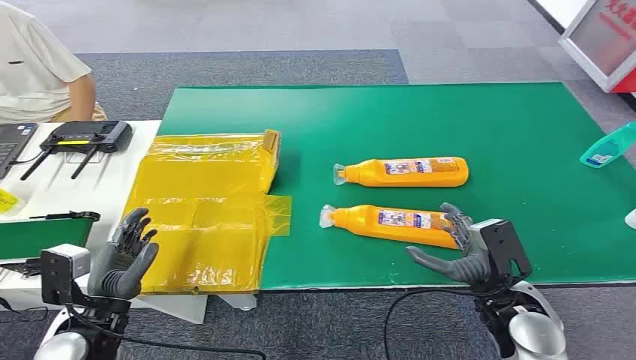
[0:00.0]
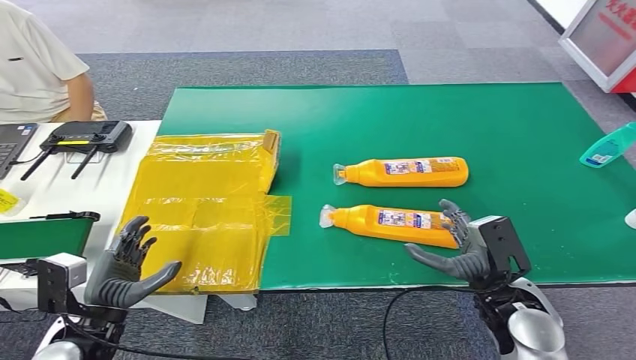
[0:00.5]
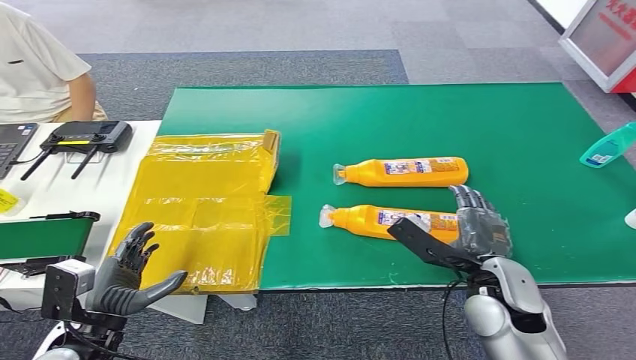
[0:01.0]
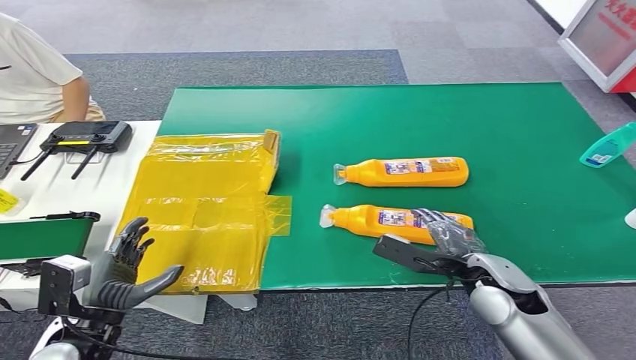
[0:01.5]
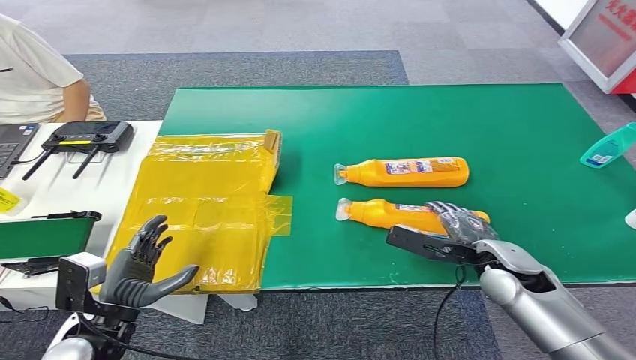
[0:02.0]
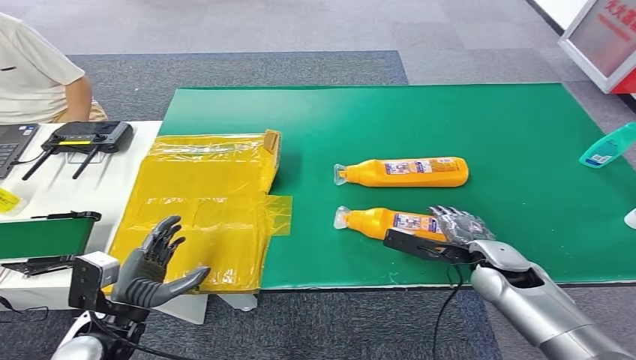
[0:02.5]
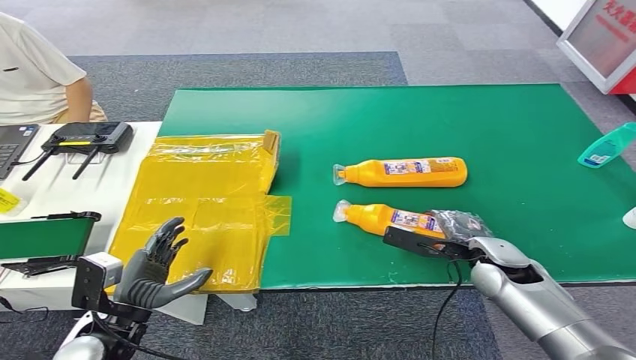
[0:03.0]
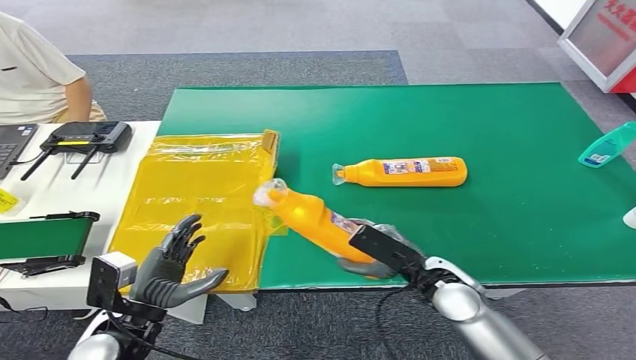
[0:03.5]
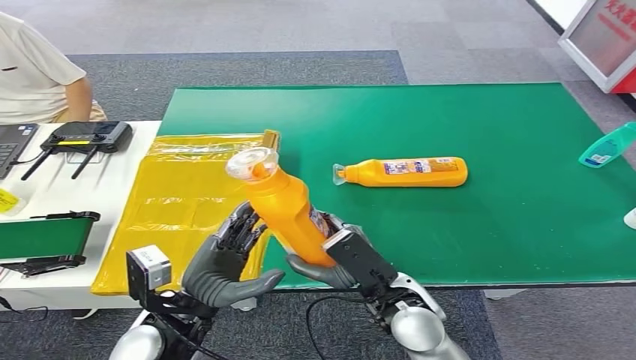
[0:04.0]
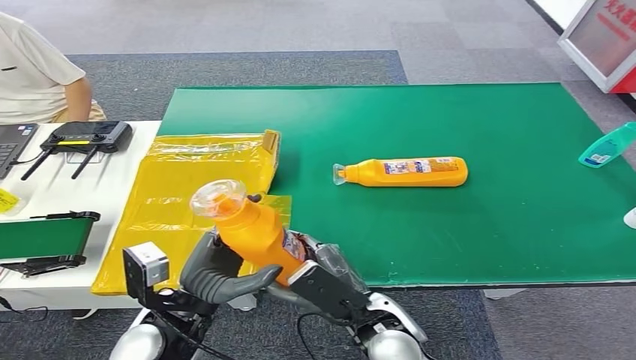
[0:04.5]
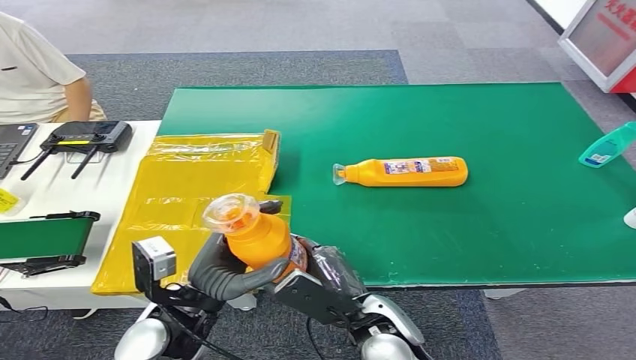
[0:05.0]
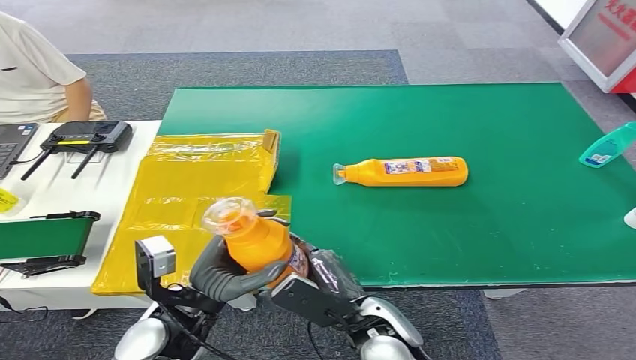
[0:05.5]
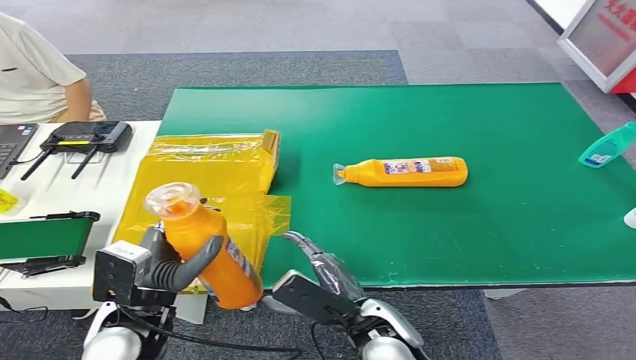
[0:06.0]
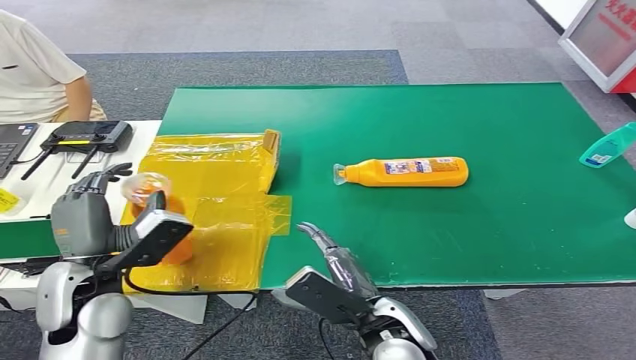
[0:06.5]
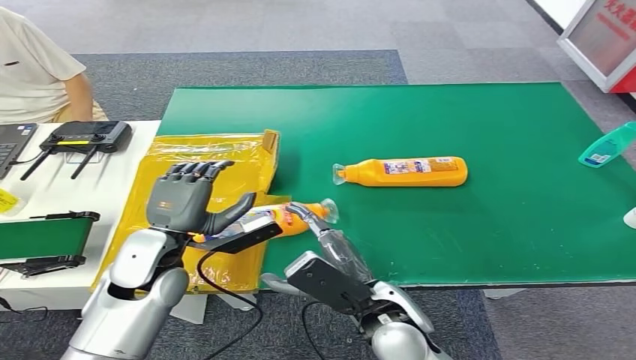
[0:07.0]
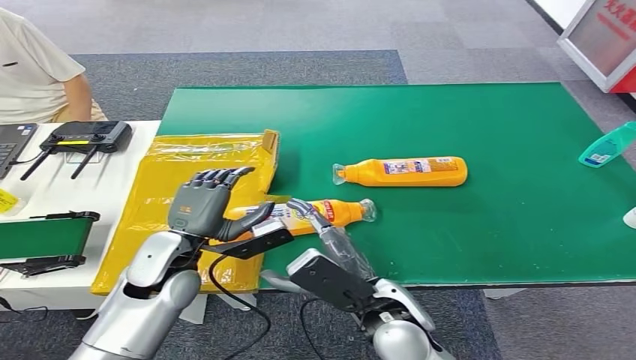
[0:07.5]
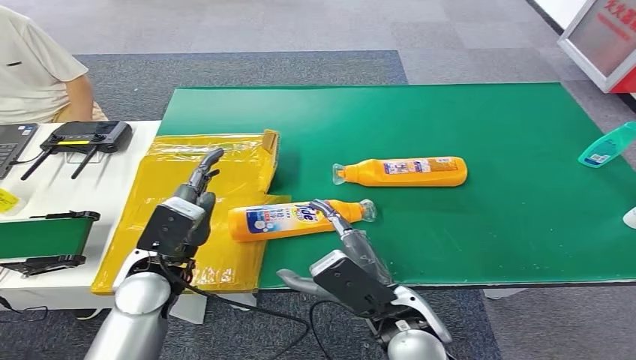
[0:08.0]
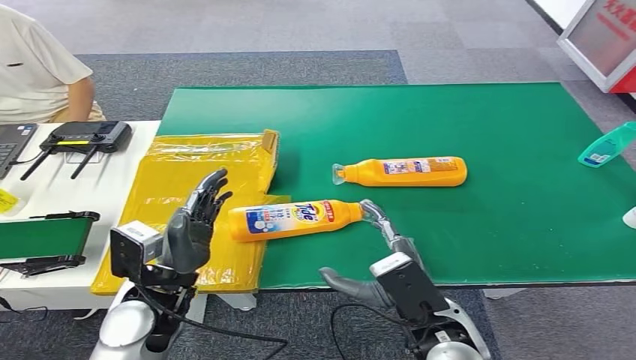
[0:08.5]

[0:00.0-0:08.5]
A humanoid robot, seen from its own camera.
Step, 0:00.0 to 0:03.5: Pick up the bottle from the table.
Step, 0:04.5 to 0:08.5: Turn the bottle to the front side.
0:04.0 to 0:06.5: The left hand shifts approximately 10 cm to the left.

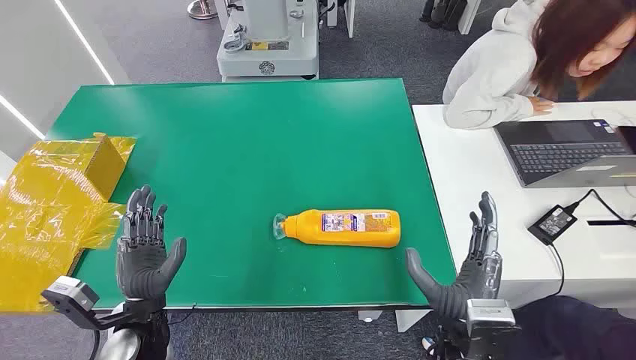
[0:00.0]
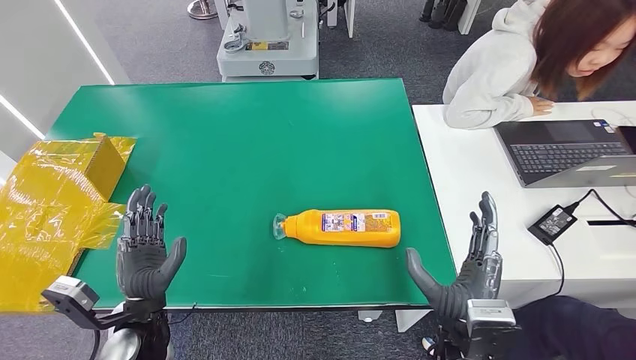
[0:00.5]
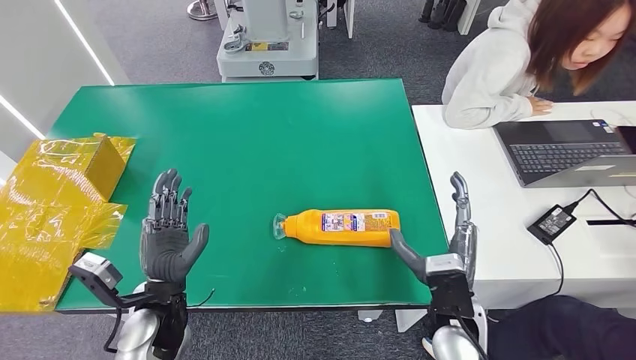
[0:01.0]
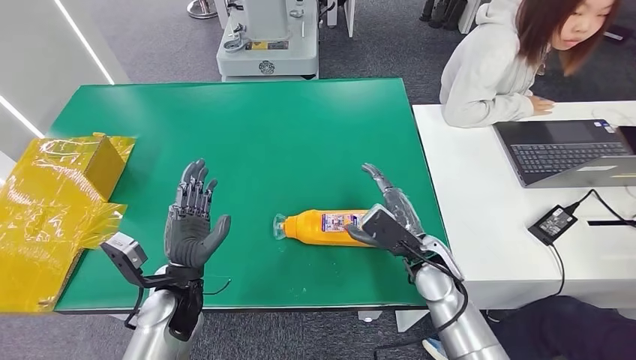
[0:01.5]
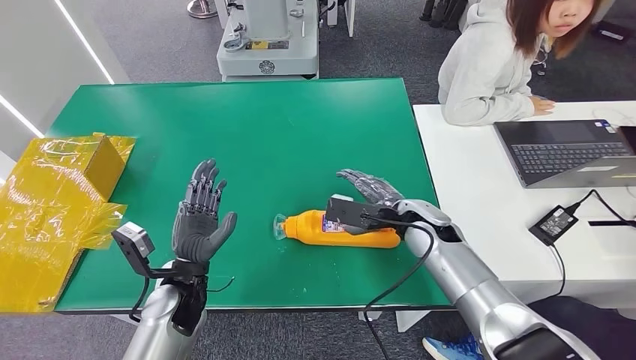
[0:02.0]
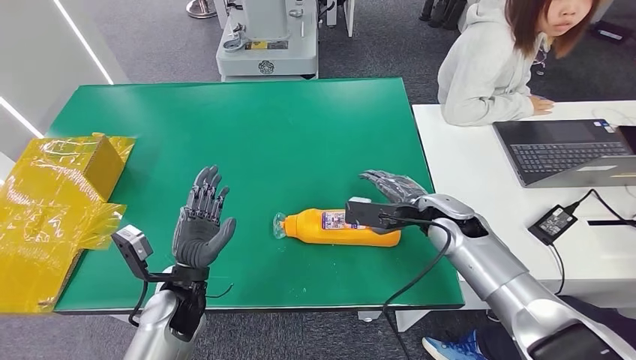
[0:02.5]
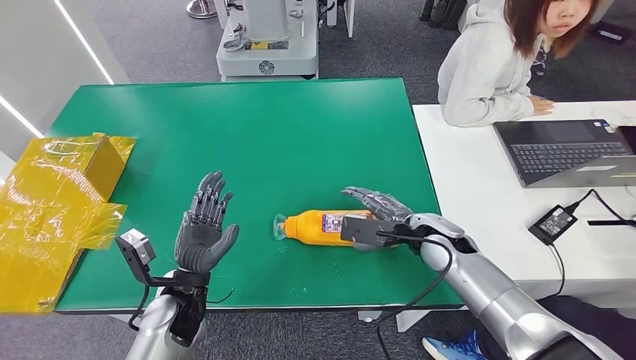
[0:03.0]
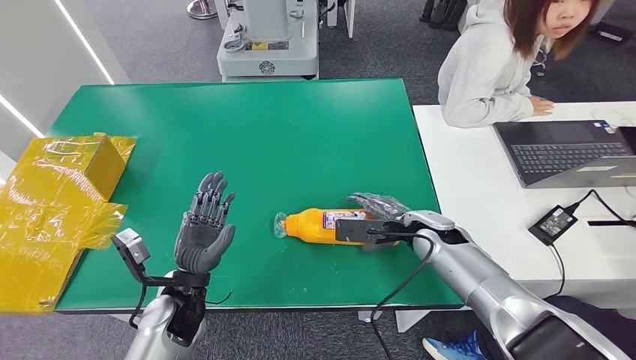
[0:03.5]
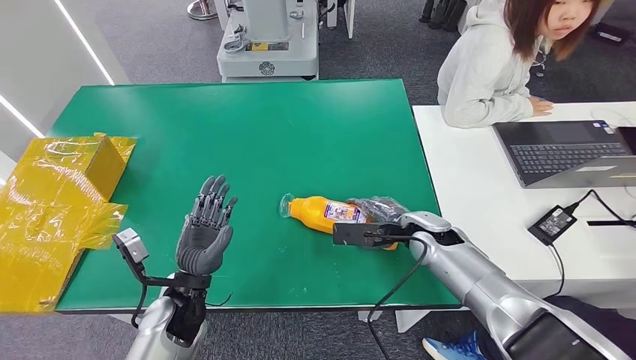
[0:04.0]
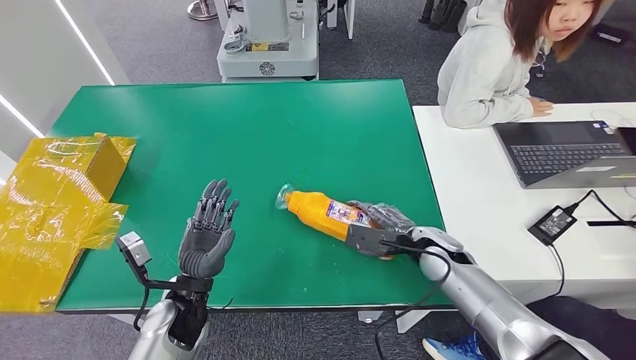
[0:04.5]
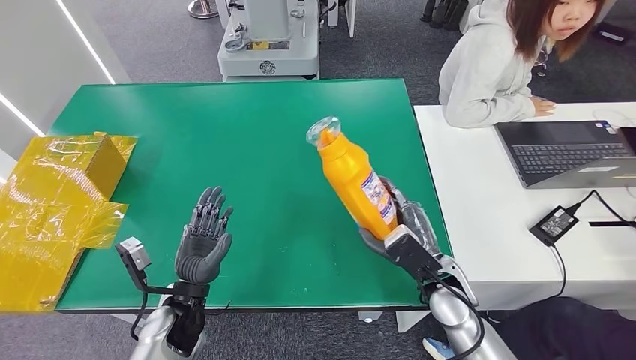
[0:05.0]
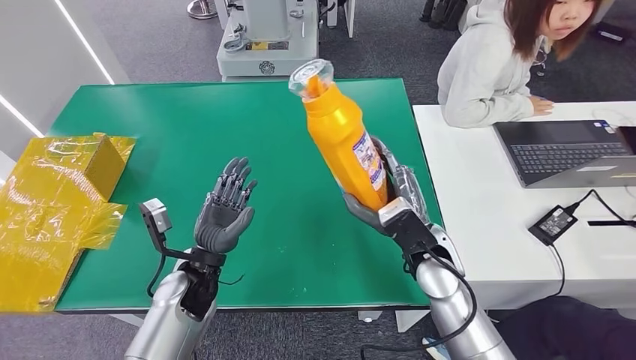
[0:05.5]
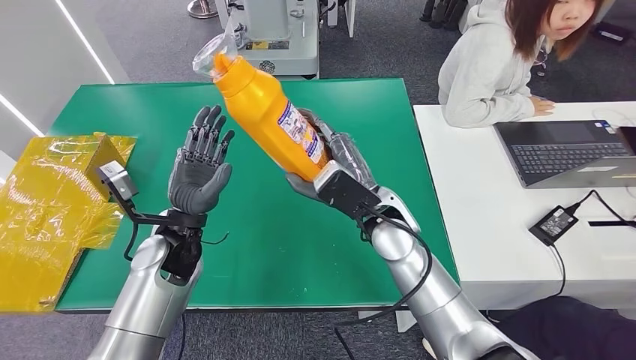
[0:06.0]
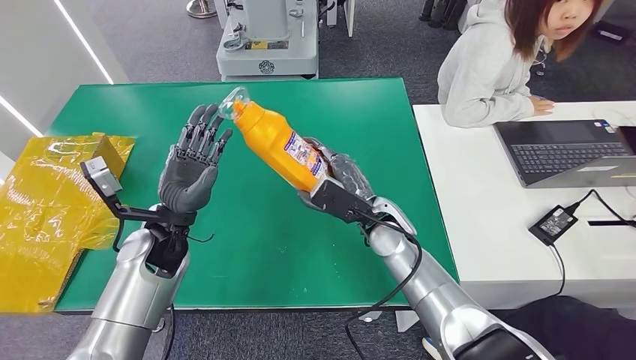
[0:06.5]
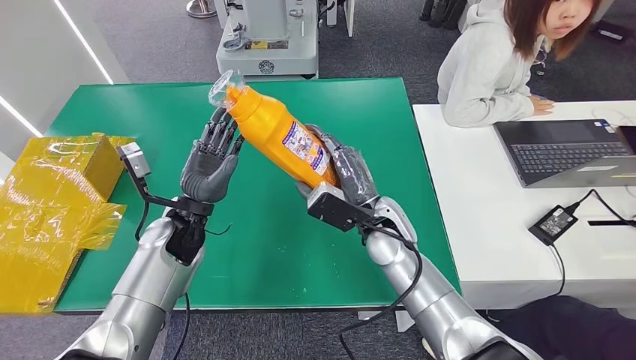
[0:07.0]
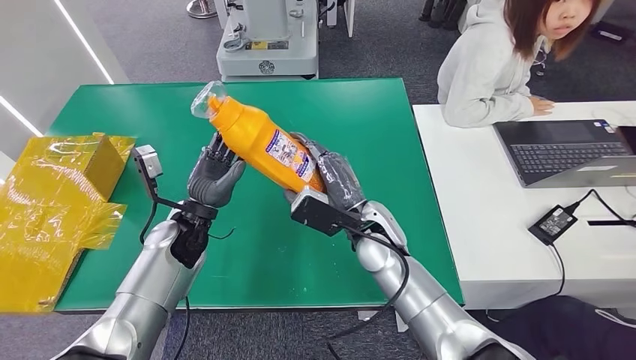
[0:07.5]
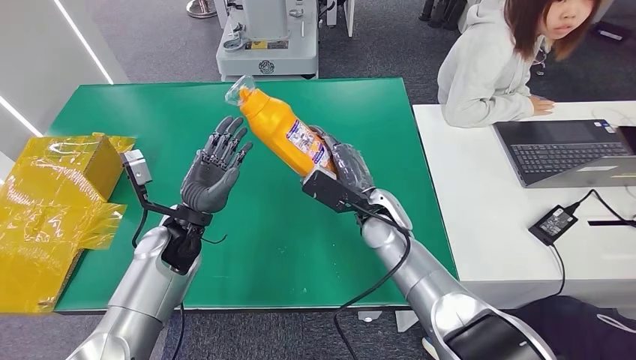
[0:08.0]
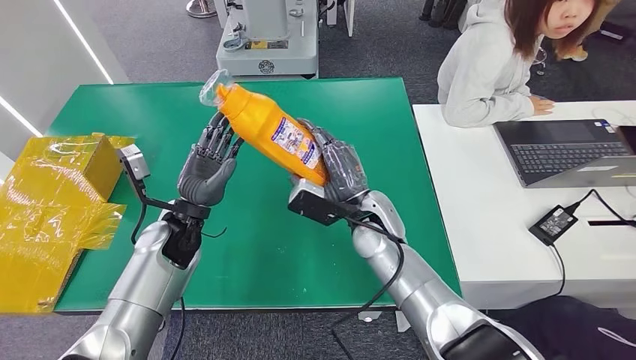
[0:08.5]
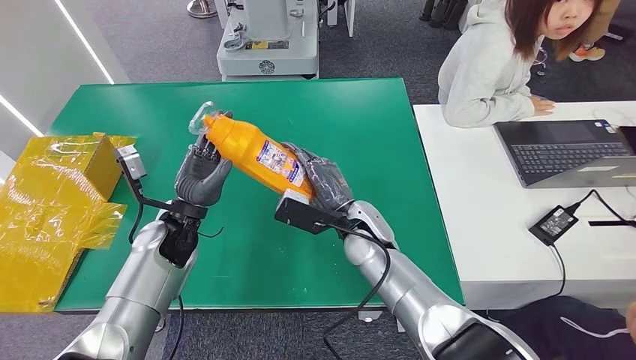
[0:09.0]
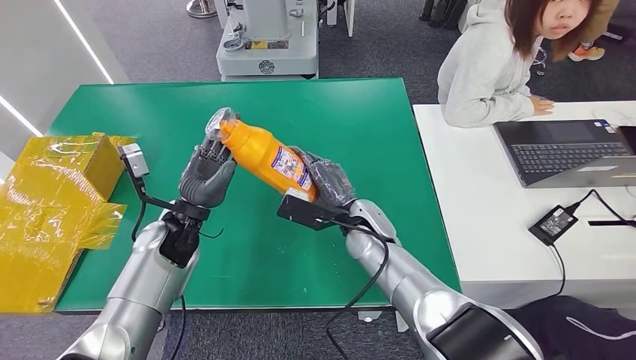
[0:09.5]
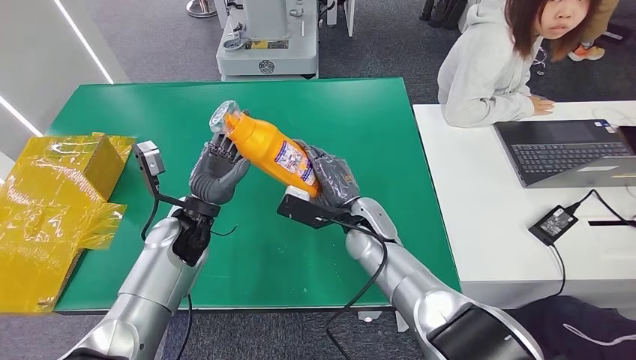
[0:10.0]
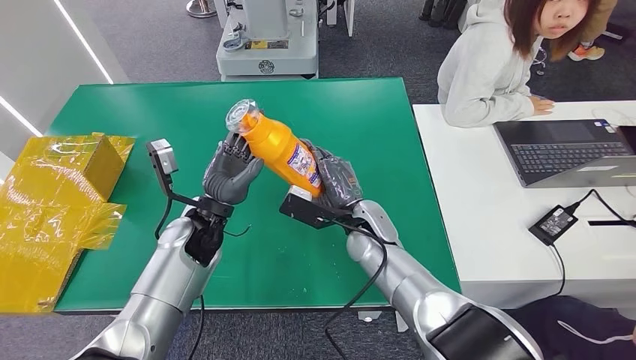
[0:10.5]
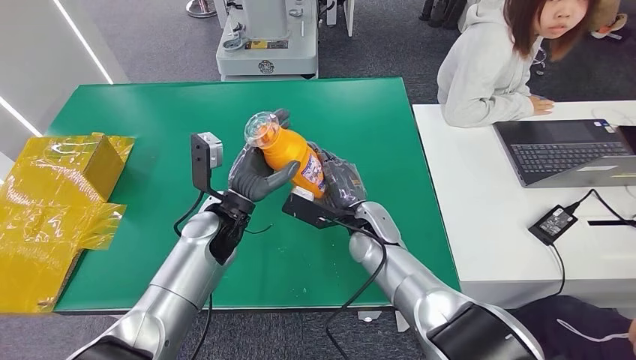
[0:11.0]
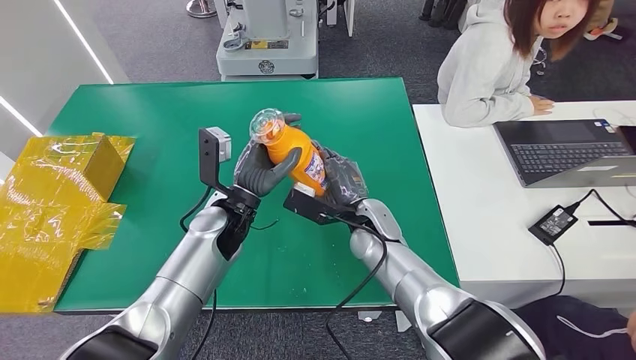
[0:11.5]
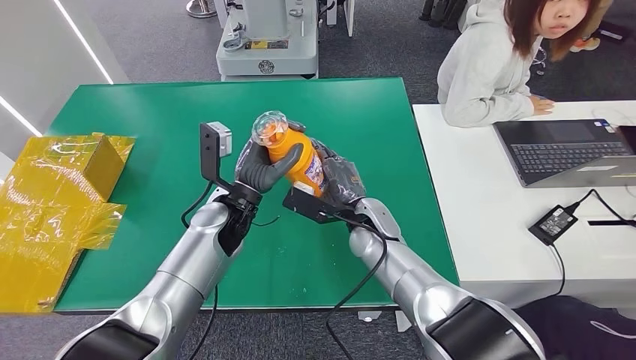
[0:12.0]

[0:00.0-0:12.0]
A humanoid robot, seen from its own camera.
Step, 0:00.0 to 0:05.0: Pick up the bottle from the table.
0:02.0 to 0:04.0: The hands make only small movements.
0:06.0 to 0:08.0: The right hand moves downward, about 5 cm.
0:08.0 to 0:10.0: The hands make only small movements.
0:10.0 to 0:12.0: The left hand travels to the right by roughly 5 cm.
